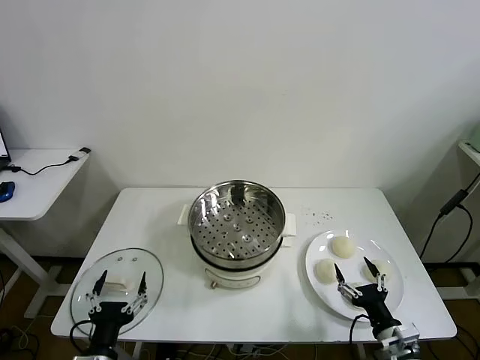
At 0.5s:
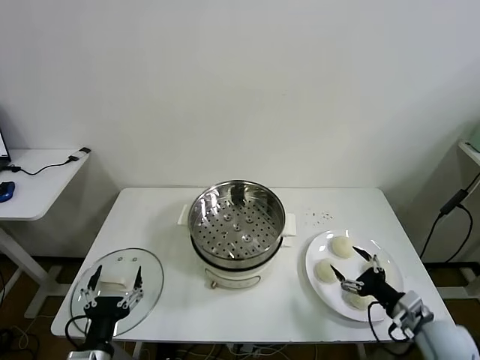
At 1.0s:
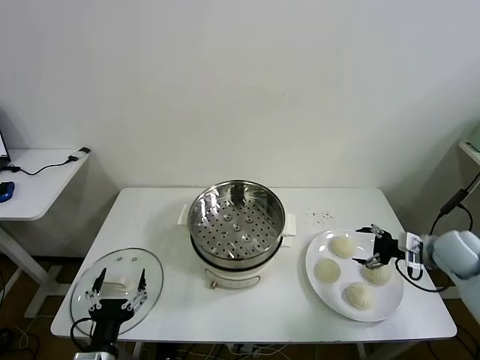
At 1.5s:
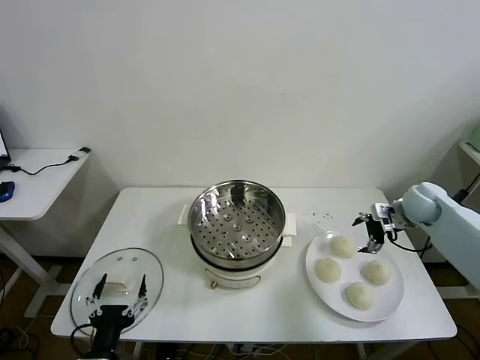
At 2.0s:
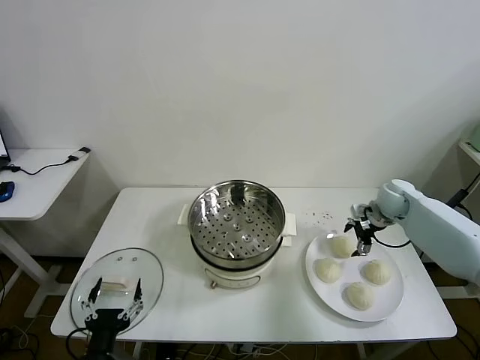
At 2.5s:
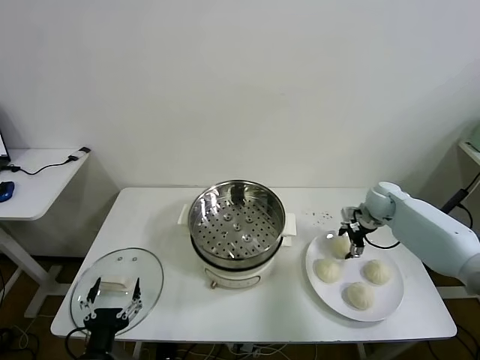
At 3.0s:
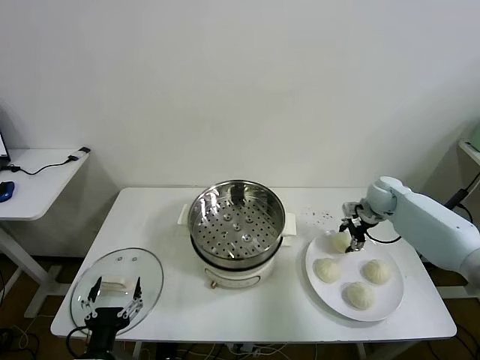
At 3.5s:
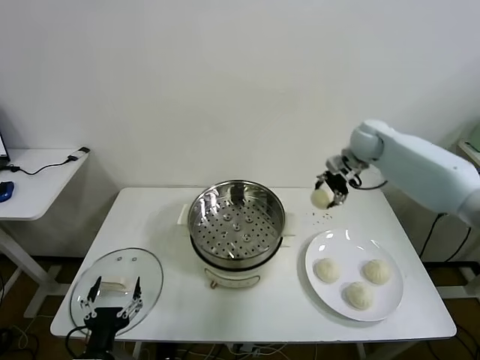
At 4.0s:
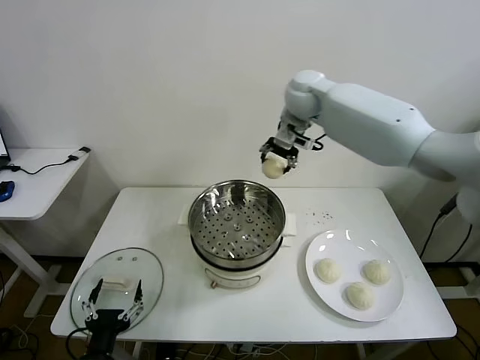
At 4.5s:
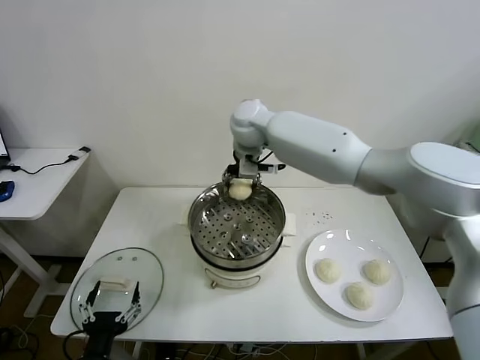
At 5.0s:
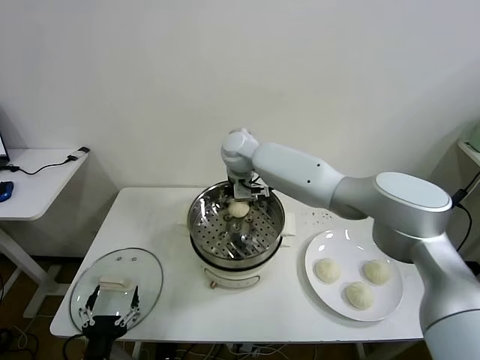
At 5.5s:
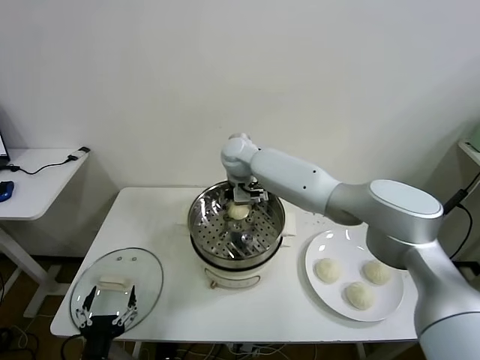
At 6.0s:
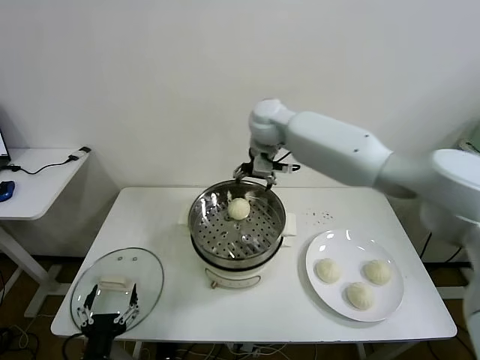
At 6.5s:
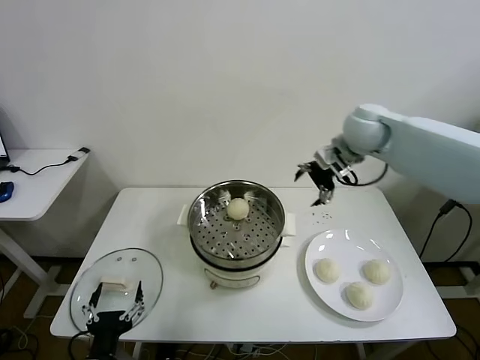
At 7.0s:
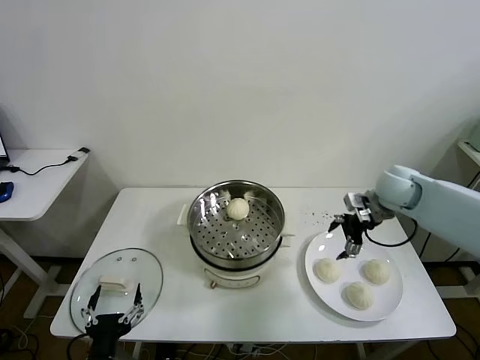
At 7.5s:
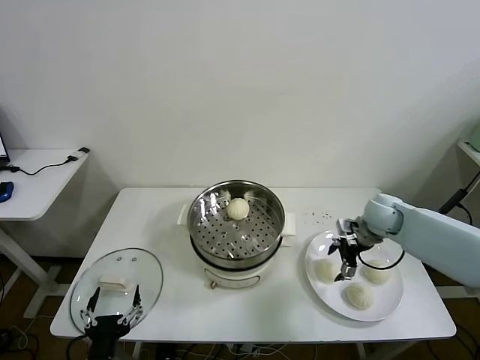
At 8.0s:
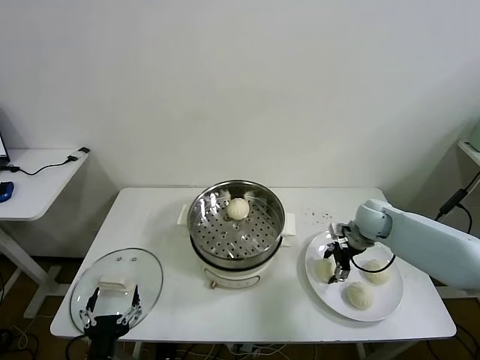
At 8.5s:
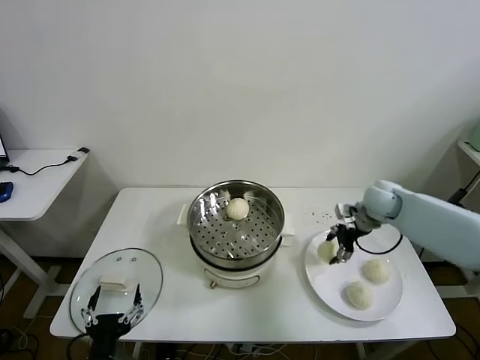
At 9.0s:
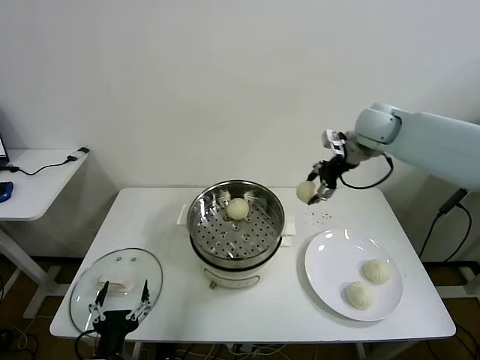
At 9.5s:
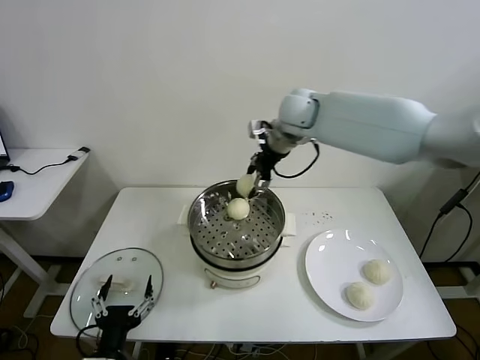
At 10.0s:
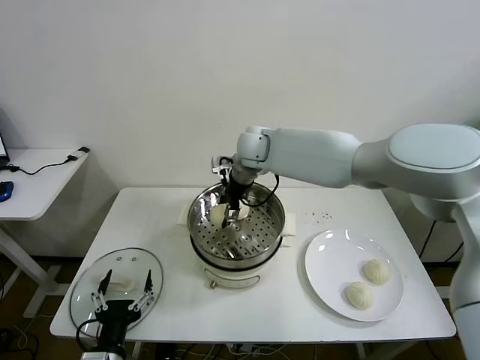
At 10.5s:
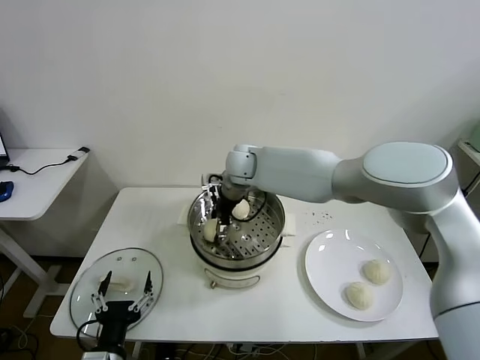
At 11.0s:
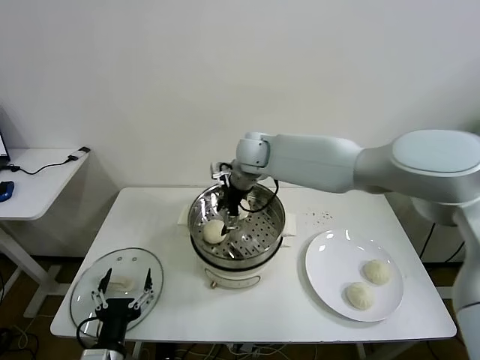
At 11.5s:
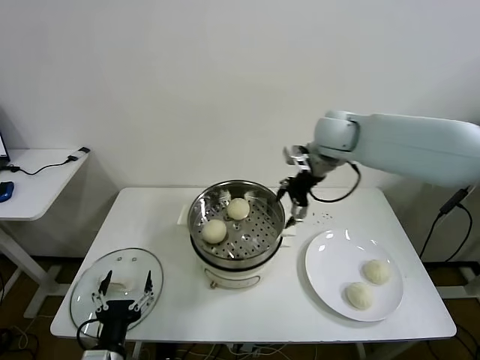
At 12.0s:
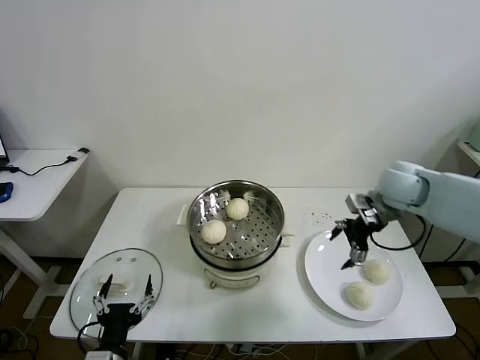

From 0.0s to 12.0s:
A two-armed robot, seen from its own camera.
Task of the whole recording: take steamed baozi put them in steamer then cover it.
Step, from 0.0s to 2.5s: Grasp the baozi in the plate with right gripper.
Step, from 3.0s to 5.5s: Place the baozi on the steamer with right gripper.
Step, from 6.0s to 8.0s: Grasp the baozi in the plate with right gripper.
Step, from 8.5s to 11.0s: Place the baozi on the steamer with right gripper.
From 2.0s to 4.0s: The right gripper moves to the left and upward, roughly 40 cm, and closes up.
From 4.0s to 6.0s: The right gripper moves approximately 15 cm downward and comes back, and opens.
From 6.0s to 8.0s: The right gripper shifts some 35 cm downward and to the right, and closes its fingers.
From 8.0s to 10.0s: The right gripper is displaced to the left and upward by some 35 cm.
From 10.0s to 12.0s: The right gripper shifts roughly 30 cm to the right, and opens its fingers.

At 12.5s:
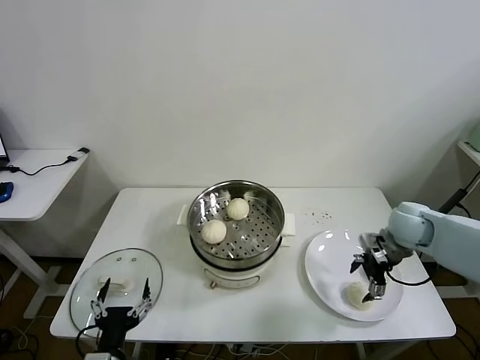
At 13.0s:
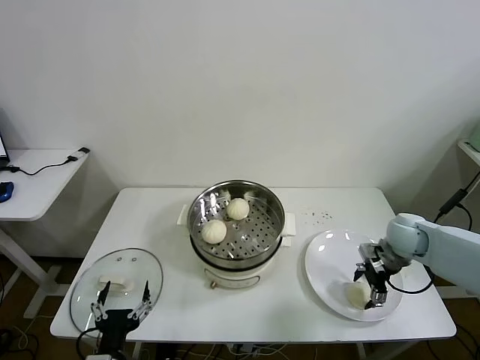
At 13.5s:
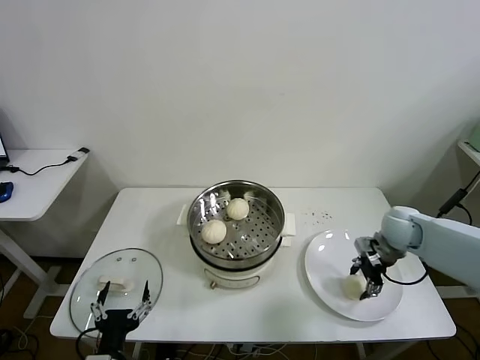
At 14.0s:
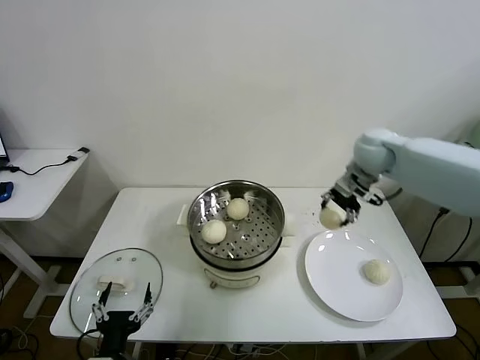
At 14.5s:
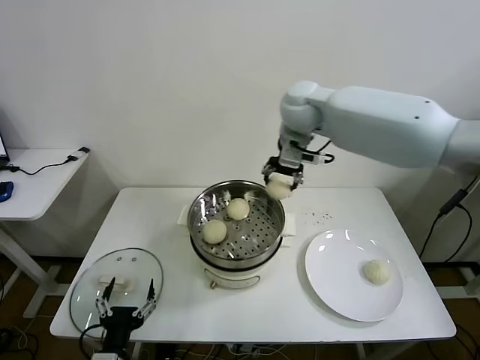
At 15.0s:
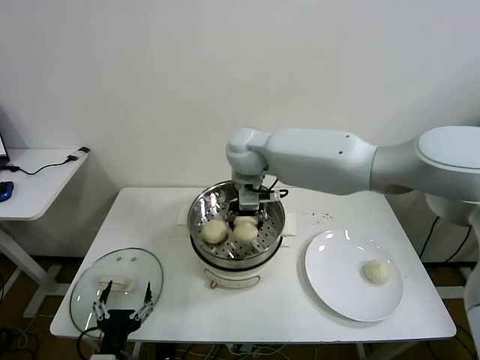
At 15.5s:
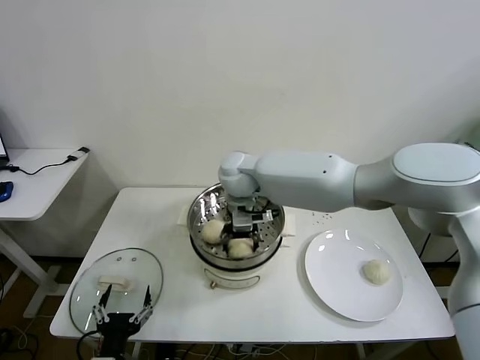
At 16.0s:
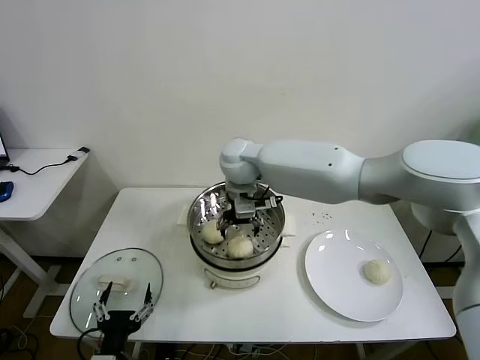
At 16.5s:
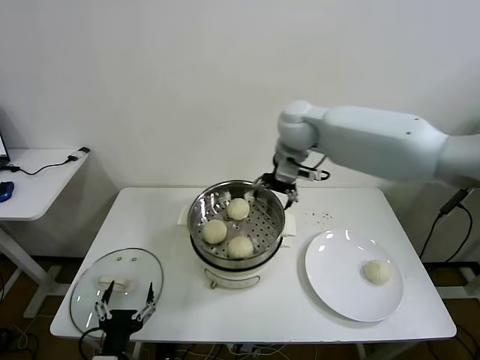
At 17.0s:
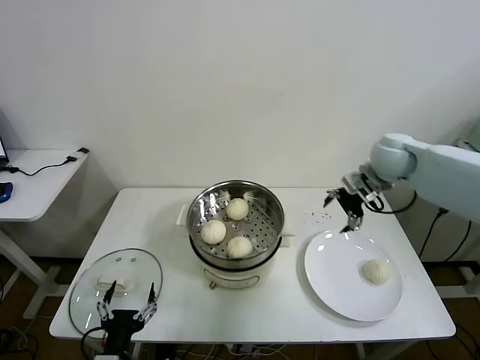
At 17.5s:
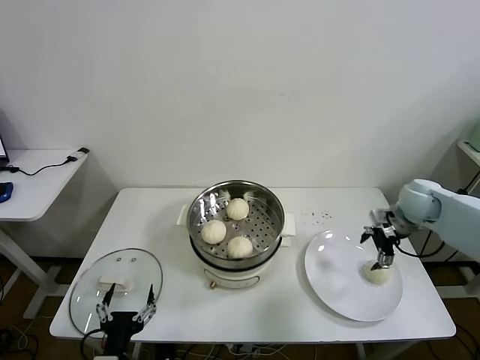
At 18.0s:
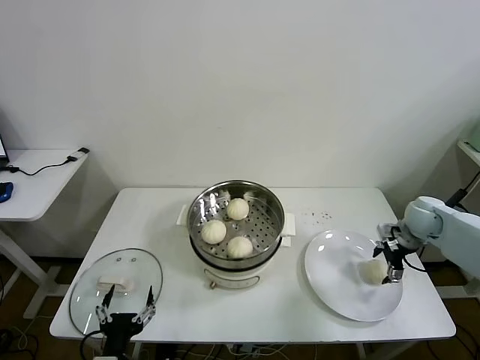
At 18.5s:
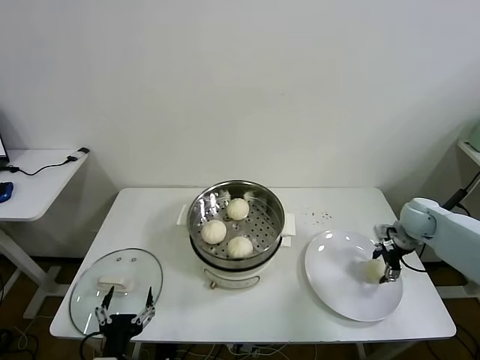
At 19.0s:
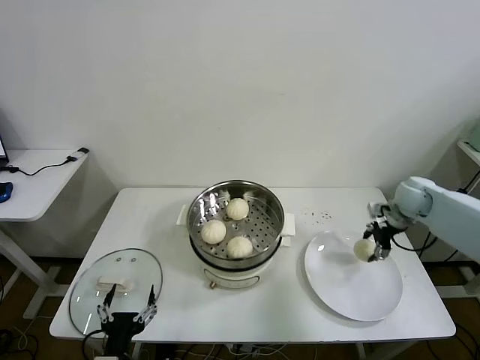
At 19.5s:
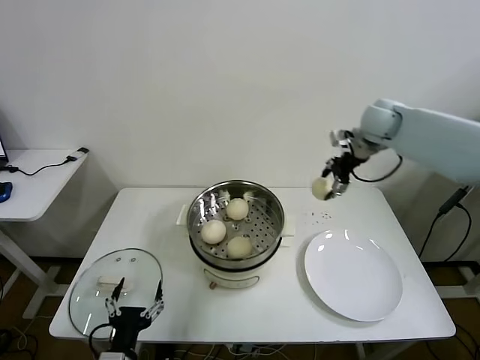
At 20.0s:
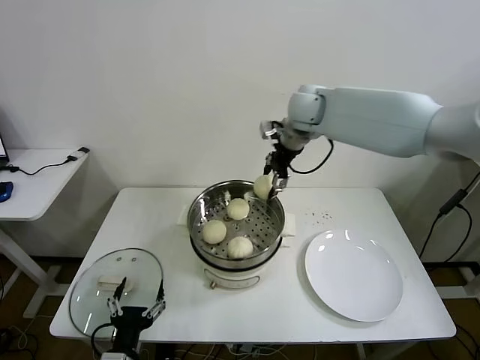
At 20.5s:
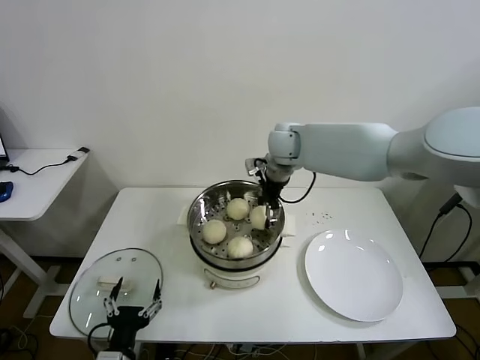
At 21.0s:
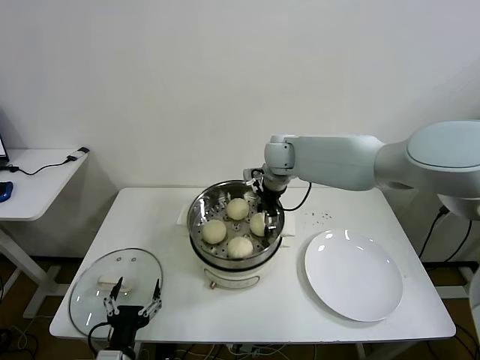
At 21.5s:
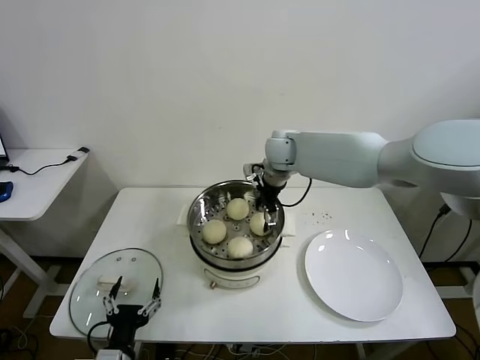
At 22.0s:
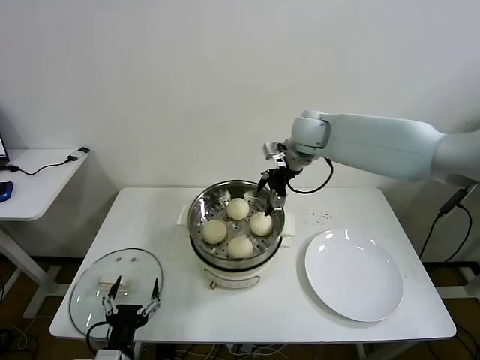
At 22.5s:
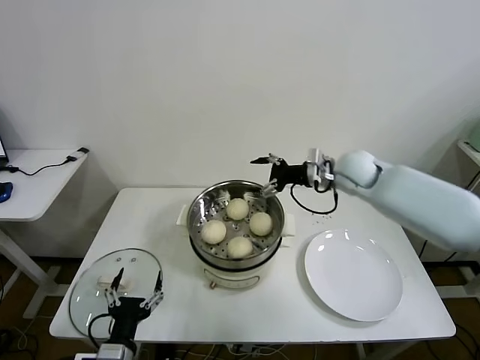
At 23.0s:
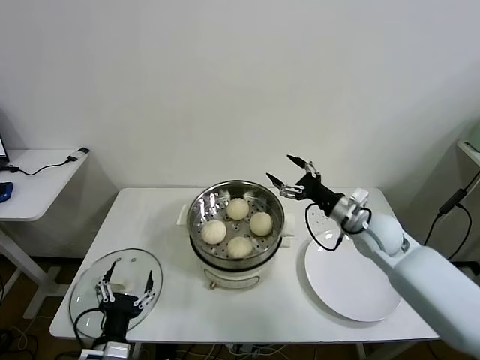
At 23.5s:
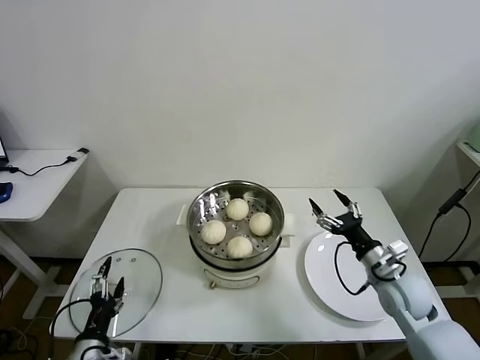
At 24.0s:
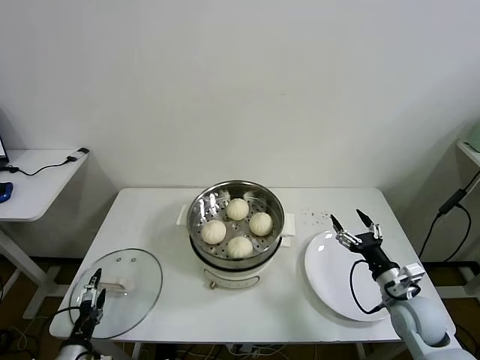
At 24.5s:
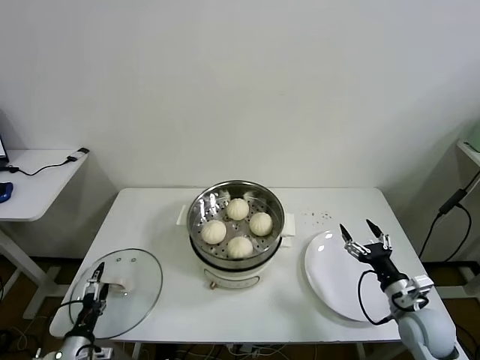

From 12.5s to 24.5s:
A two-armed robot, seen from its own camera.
Task of the whole recording: take steamed baozi put them in steamer then cover it.
Step, from 13.5s to 16.0s: Place the baozi on the steamer with right gripper.
Step, from 16.5s to 18.5s: Grasp the baozi in the plate with right gripper.
Step, from 19.0s to 21.5s: Place the baozi on the steamer with right gripper.
From 12.5s to 14.5s: The right gripper shifts roughly 40 cm to the left, upward and forward, and closes.
From 14.5s to 16.5s: The right gripper travels to the left and back again, approximately 10 cm each way, and opens.
From 16.5s to 18.5s: The right gripper heads to the right and downward, covering about 40 cm, and closes up.
From 18.5s to 20.5s: The right gripper is displaced to the left and upward by approximately 40 cm.
From 20.5s to 22.5s: The right gripper travels to the right by roughly 15 cm, and opens its fingers.
From 22.5s to 24.5s: The right gripper moves backward, downward and to the right, approximately 35 cm. Meanwhile the left gripper moves to the left and downward, some 20 cm.

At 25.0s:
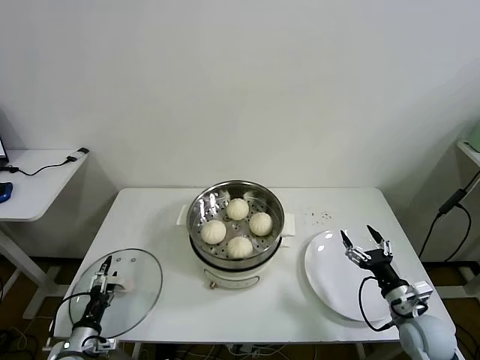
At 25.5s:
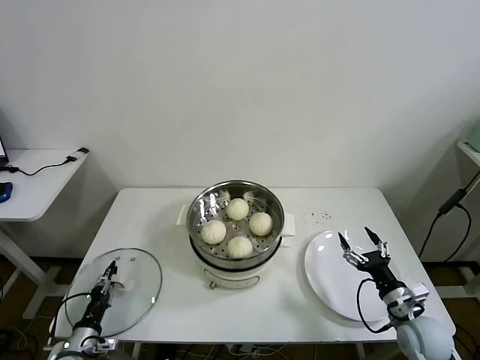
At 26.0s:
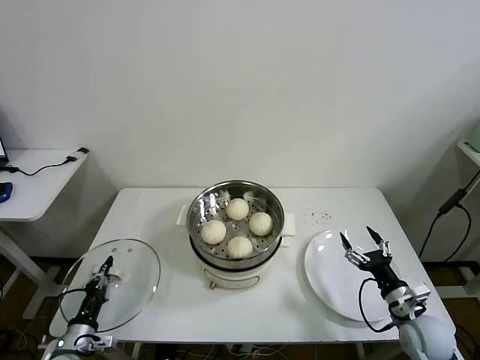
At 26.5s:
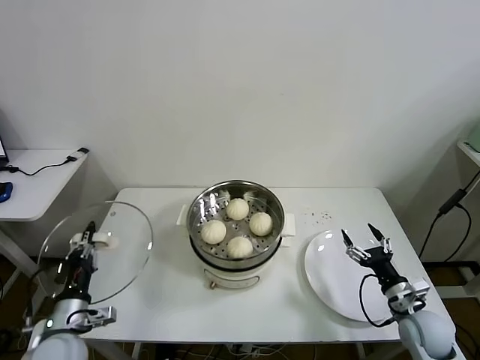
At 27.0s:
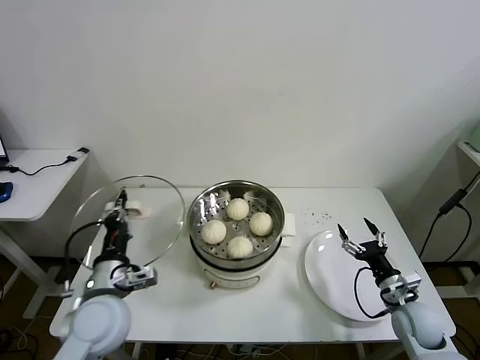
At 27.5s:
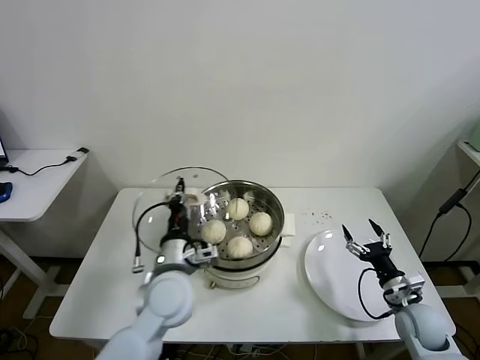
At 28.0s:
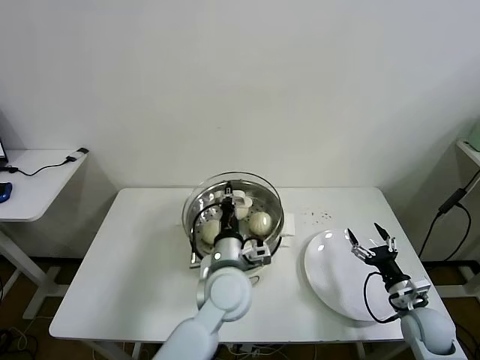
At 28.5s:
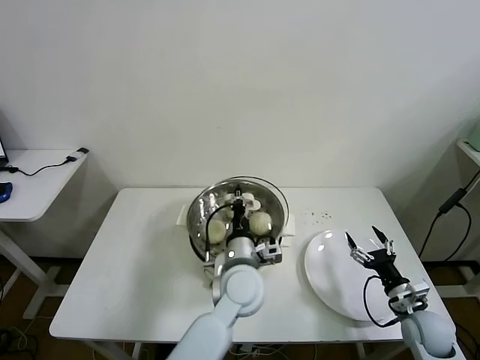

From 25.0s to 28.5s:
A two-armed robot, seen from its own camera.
Task of the whole recording: take steamed baozi put them in steamer then cover it.
From 25.0s to 27.0s: The left gripper goes about 25 cm upward and to the right, and closes.
From 27.0s to 28.5s: The left gripper shifts some 25 cm to the right.
